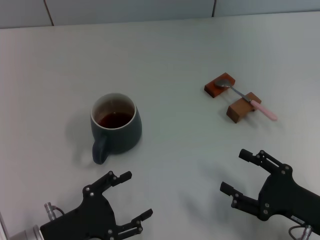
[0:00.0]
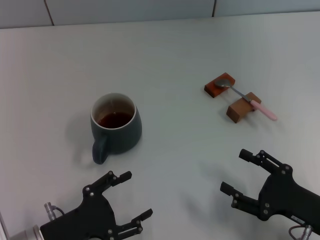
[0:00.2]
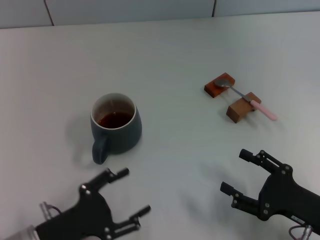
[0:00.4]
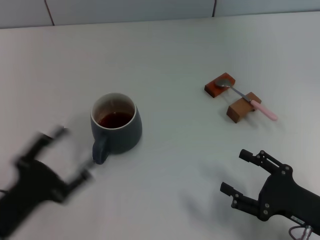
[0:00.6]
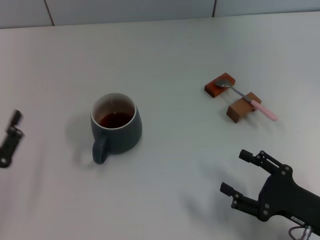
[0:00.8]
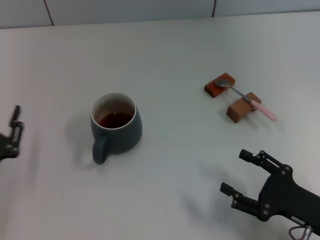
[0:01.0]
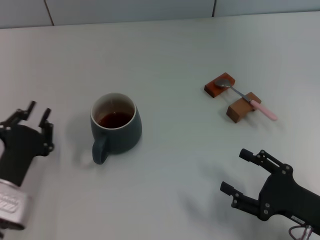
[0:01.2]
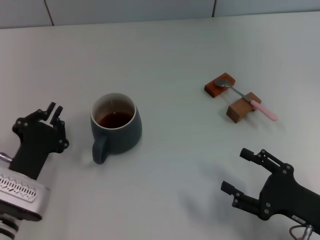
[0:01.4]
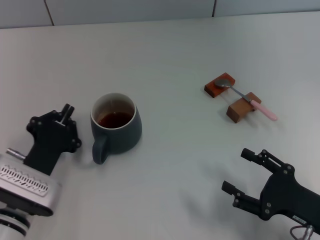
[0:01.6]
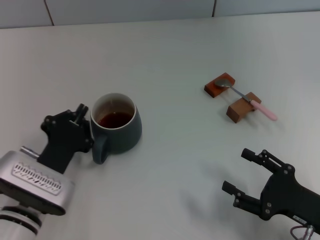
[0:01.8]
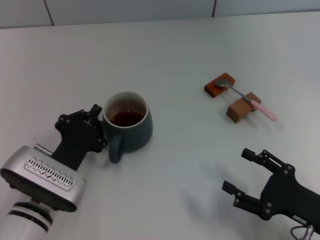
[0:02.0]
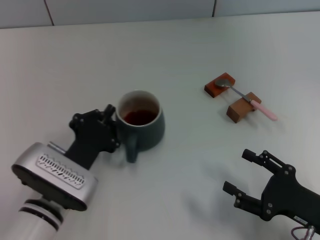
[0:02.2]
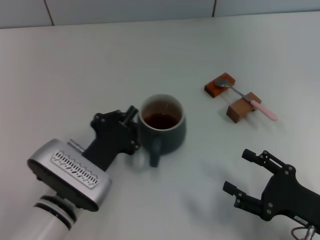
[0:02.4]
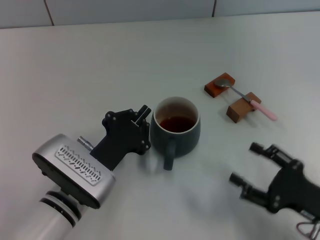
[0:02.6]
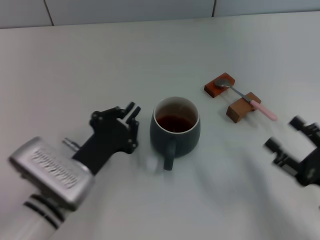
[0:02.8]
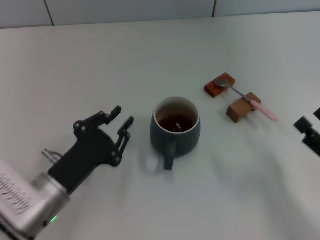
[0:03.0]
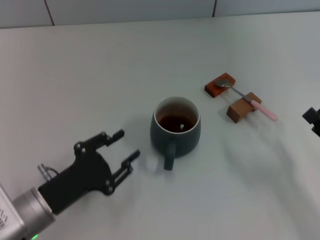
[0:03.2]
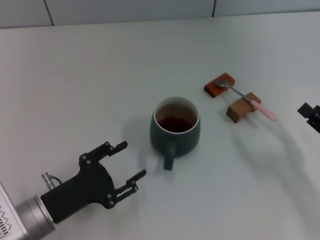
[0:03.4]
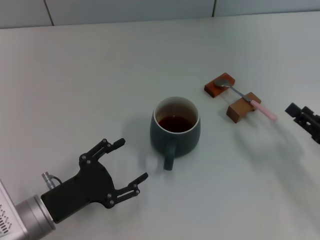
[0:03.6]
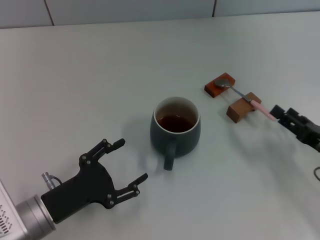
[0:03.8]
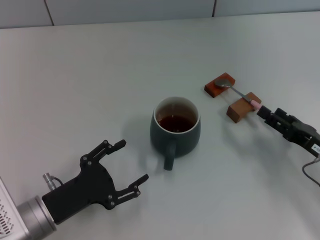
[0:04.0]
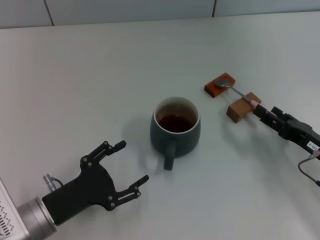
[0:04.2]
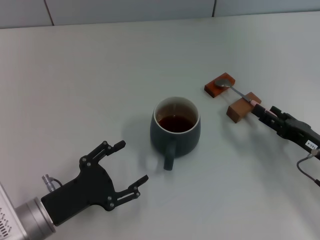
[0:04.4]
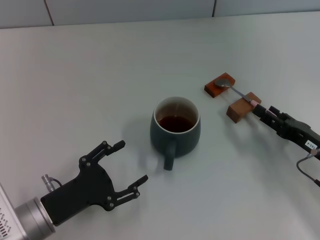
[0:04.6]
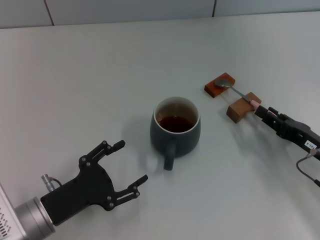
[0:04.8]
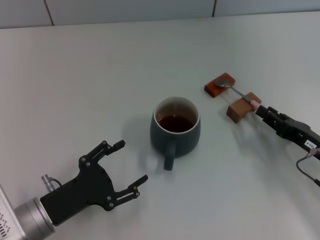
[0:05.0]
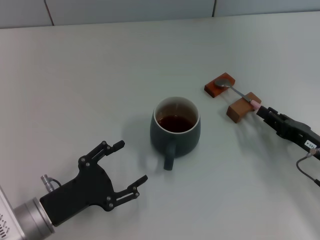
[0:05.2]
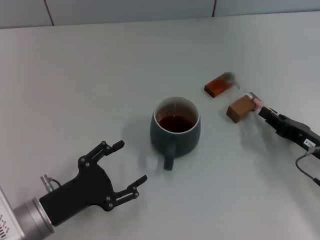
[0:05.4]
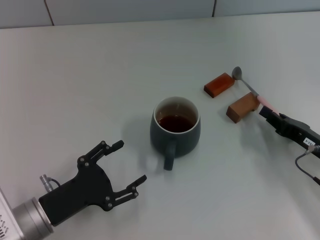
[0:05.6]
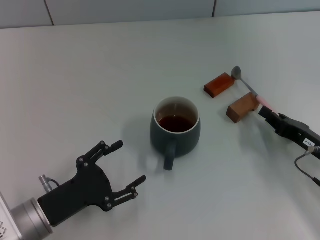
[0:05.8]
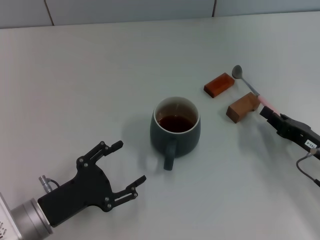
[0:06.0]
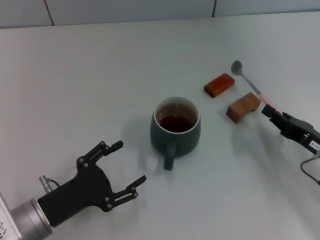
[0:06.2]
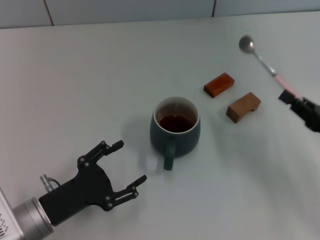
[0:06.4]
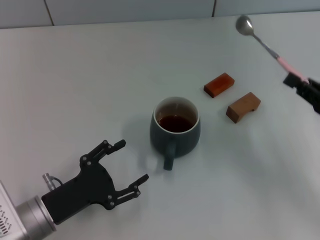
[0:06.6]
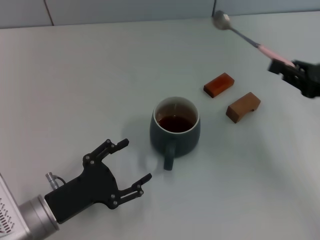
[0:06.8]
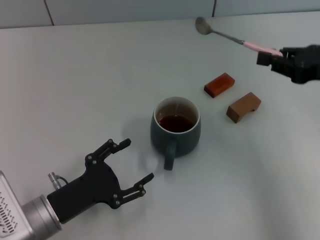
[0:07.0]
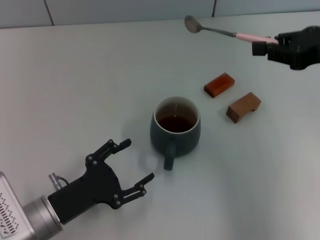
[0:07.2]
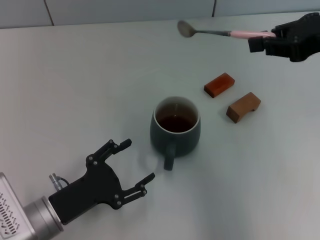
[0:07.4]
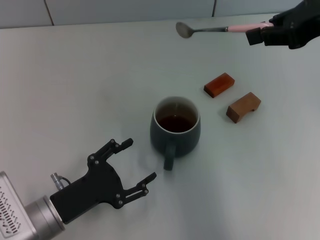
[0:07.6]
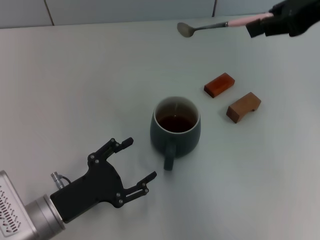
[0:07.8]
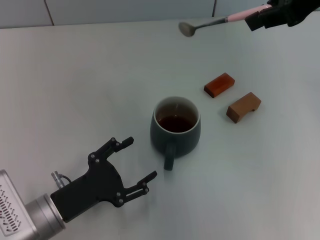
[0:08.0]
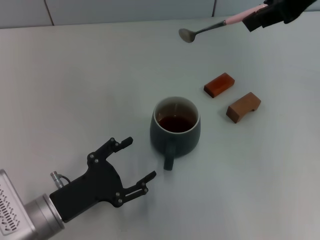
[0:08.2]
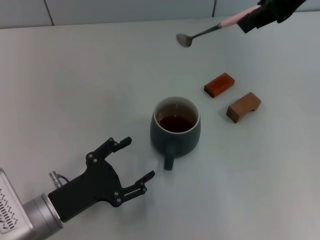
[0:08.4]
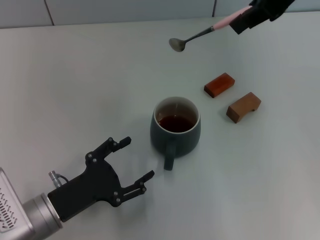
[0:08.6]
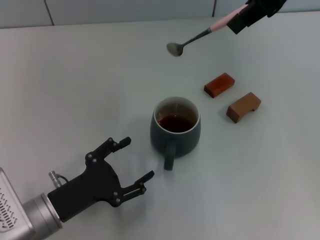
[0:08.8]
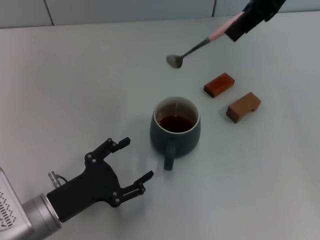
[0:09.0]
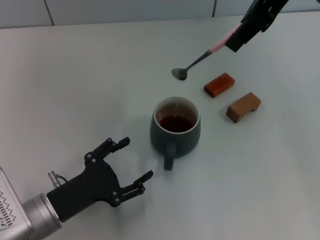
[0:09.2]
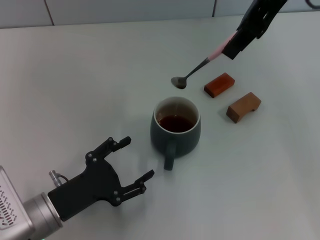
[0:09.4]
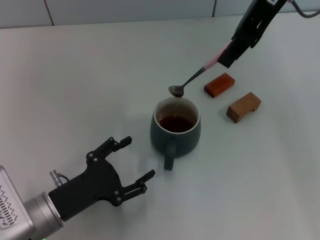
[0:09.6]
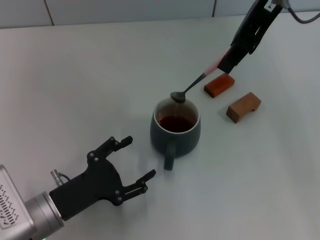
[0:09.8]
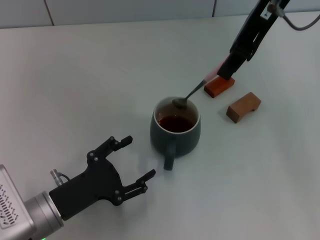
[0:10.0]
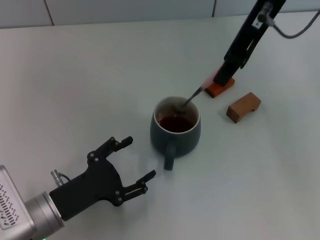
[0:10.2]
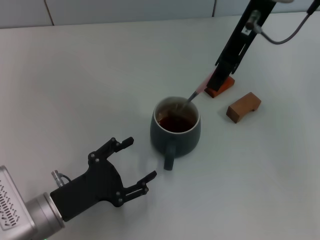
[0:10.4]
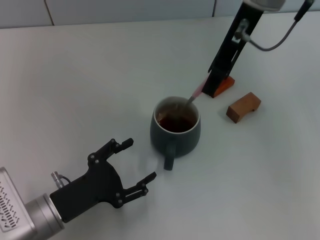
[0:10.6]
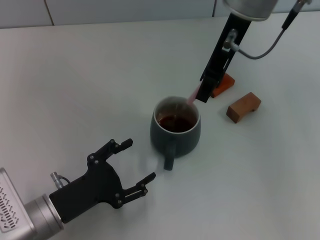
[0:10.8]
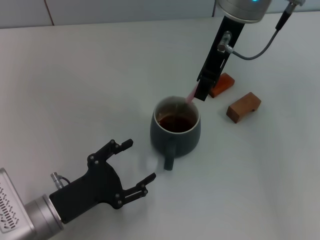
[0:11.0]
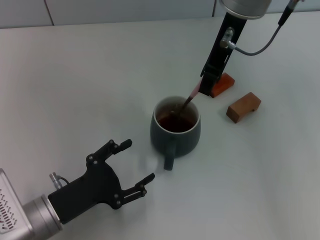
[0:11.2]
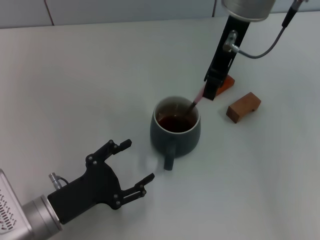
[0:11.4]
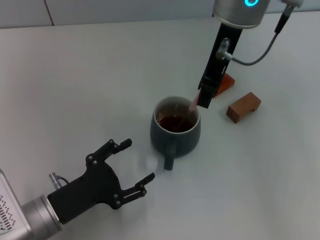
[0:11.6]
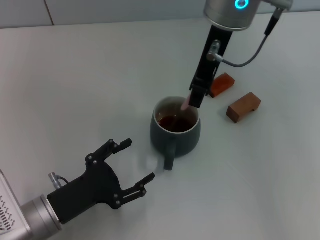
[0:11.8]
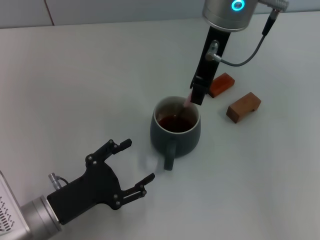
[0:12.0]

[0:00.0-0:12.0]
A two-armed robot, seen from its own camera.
Task of the whole recording: Move the grey cup to the center, lift the pink spoon, stir it three times in the cup, and put the spoon into the cup.
Step, 0:00.0 to 0:03.0: Move the cup with coffee to the center of view with the left gripper.
Step, 0:03.4 to 0:06.2: Pick up the spoon with the right gripper.
0:00.0 to 0:01.6: The left gripper travels forward by roughly 5 cm, travels to the left and back again, approximately 5 cm each way, and closes its fingers.
0:01.6 to 0:03.0: The left gripper travels to the right and back again, about 10 cm each way; the right gripper travels to the right by some 5 cm.
0:03.0 to 0:04.4: The left gripper opens up. The right gripper moves forward, about 10 cm.
0:04.4 to 0:06.0: The right gripper closes up.
0:06.0 to 0:07.6: The right gripper is displaced upward by some 30 cm.
0:07.6 to 0:09.0: The right gripper is displaced to the left, upward and forward by roughly 10 cm.
0:09.0 to 0:10.4: The right gripper heads downward and to the left, covering approximately 10 cm.
0:10.4 to 0:12.0: The right gripper changes place by about 5 cm.

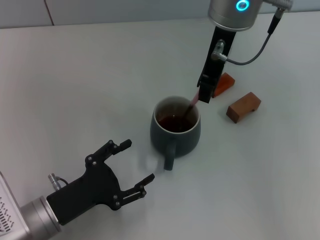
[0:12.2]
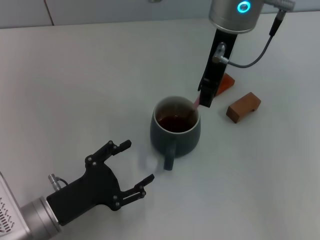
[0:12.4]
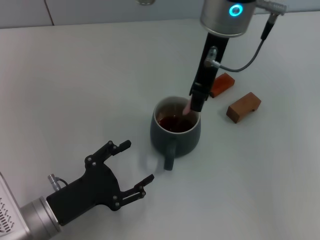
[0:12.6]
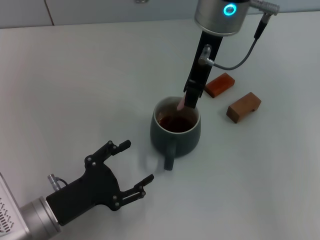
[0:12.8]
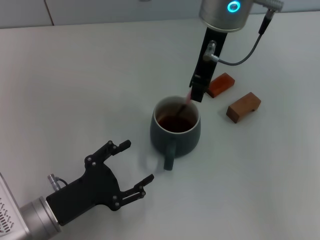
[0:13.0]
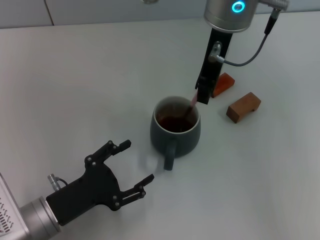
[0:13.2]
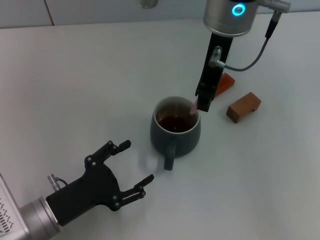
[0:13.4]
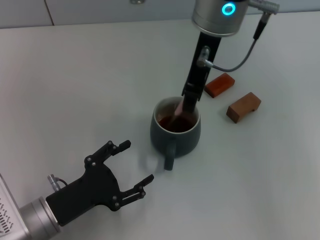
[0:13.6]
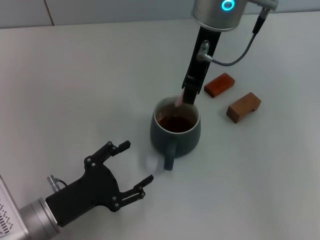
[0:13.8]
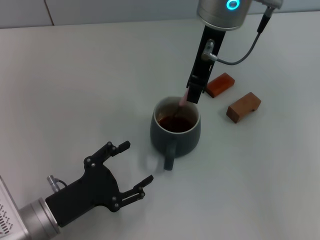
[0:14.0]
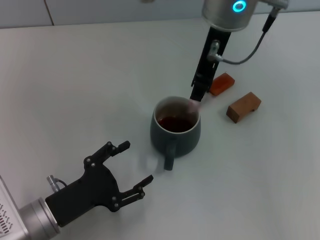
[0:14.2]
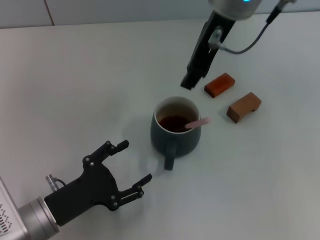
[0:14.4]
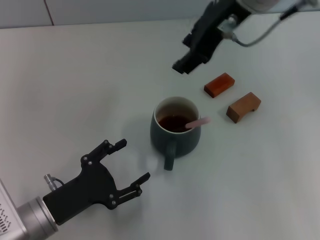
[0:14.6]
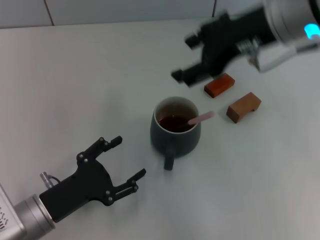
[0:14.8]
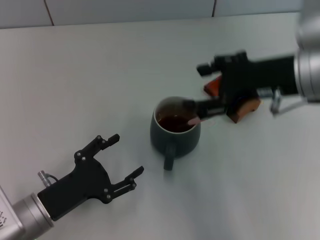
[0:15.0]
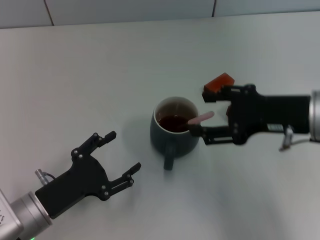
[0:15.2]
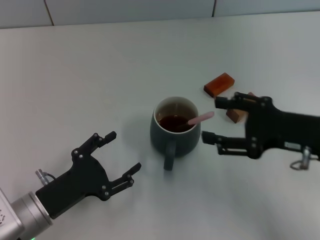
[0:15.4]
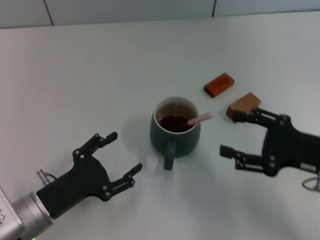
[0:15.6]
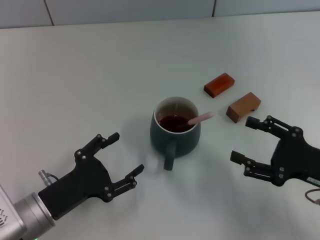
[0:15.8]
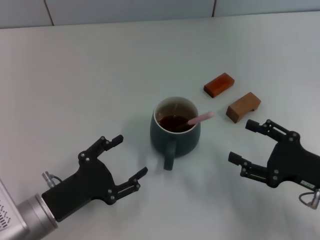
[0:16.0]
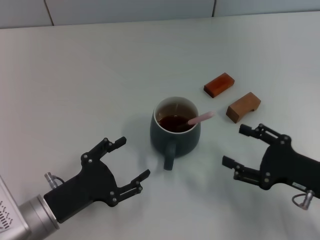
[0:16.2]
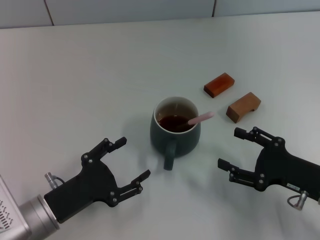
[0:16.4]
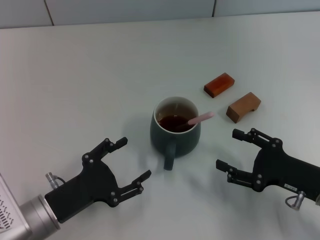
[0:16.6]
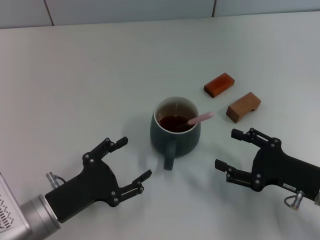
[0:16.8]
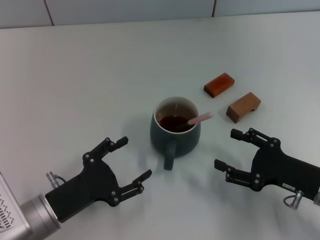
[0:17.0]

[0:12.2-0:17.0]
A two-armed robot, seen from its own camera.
Task of the whole recording: Move the grey cup to the center, lift the pink spoon, stir it three times in the cup, and put the spoon into the cup.
Step, 0:12.2 to 0:14.4: Stir the coffee in the cup with the right gripper.
0:12.2 to 0:13.8: The grippers make only small movements.
0:13.8 to 0:15.4: The right gripper travels to the right, backward and downward by about 30 cm, and opens its fingers.
0:15.4 to 0:17.0: The right gripper travels downward by roughly 10 cm.
